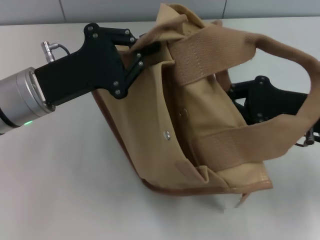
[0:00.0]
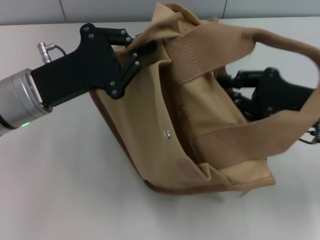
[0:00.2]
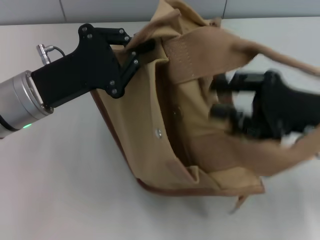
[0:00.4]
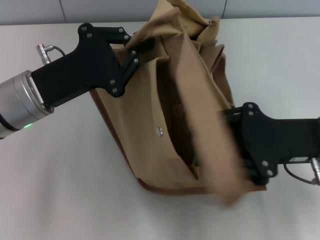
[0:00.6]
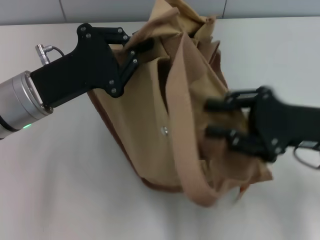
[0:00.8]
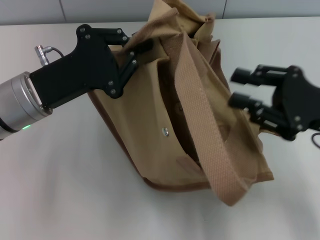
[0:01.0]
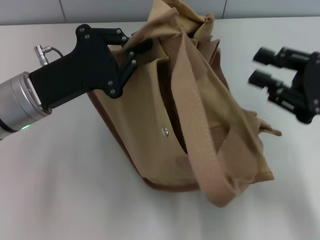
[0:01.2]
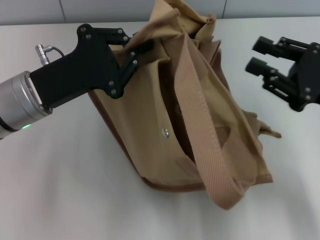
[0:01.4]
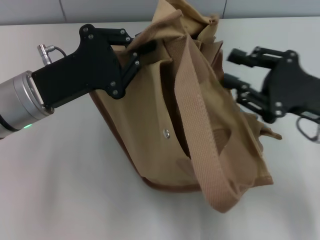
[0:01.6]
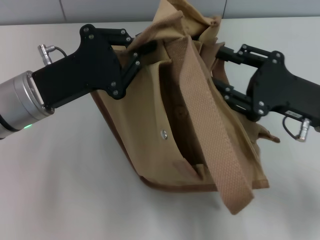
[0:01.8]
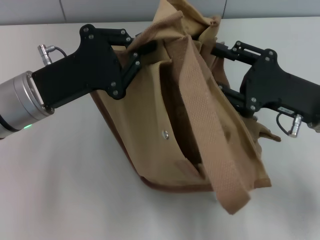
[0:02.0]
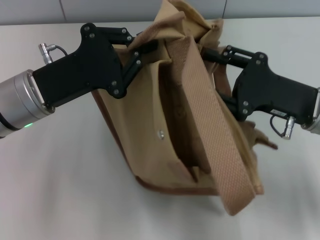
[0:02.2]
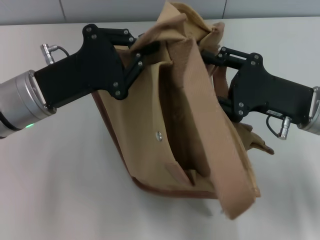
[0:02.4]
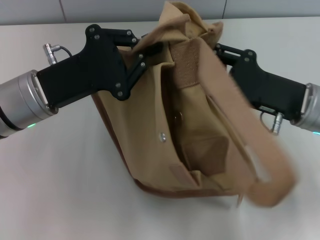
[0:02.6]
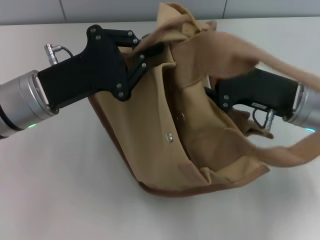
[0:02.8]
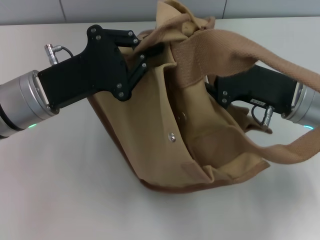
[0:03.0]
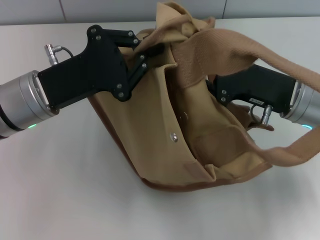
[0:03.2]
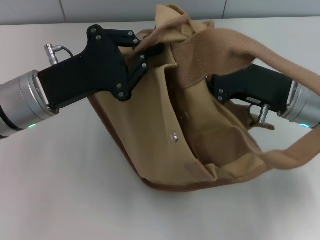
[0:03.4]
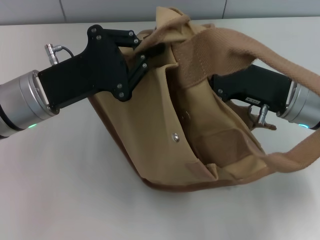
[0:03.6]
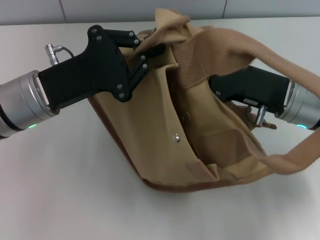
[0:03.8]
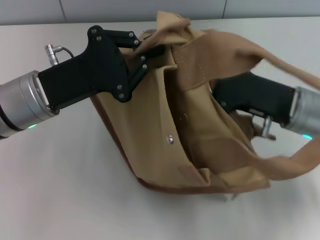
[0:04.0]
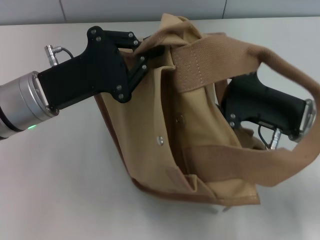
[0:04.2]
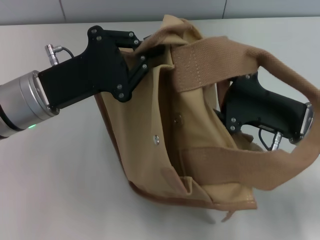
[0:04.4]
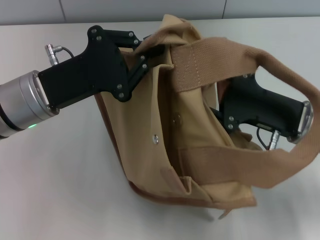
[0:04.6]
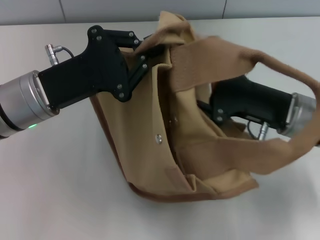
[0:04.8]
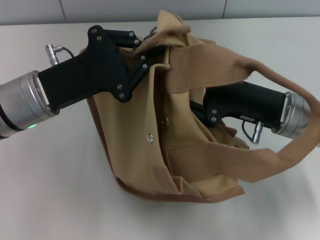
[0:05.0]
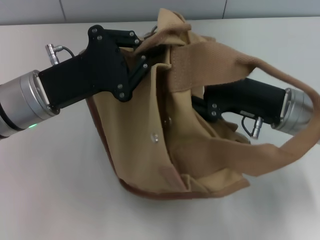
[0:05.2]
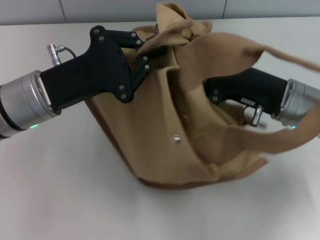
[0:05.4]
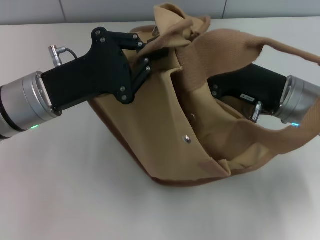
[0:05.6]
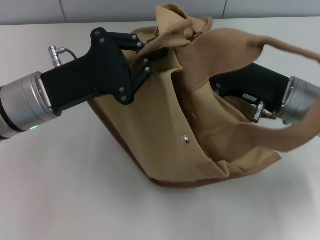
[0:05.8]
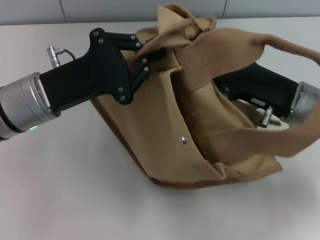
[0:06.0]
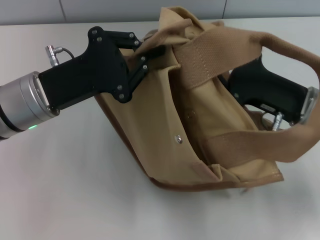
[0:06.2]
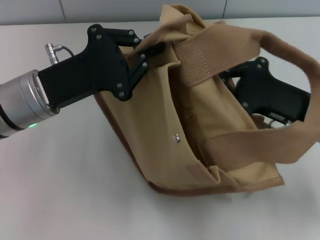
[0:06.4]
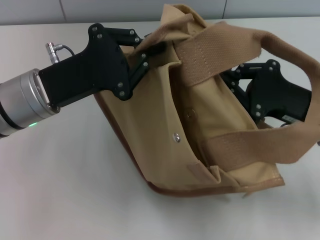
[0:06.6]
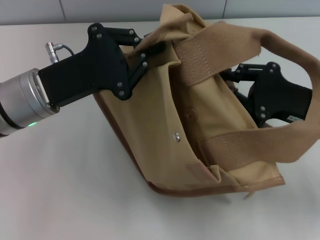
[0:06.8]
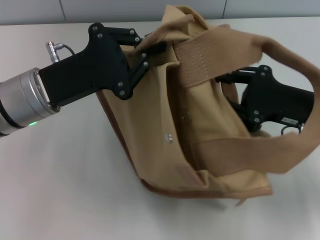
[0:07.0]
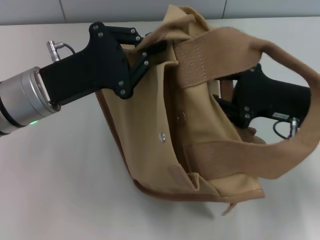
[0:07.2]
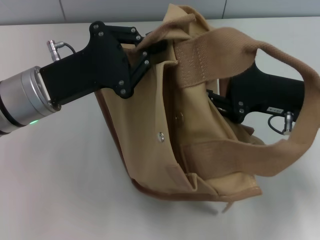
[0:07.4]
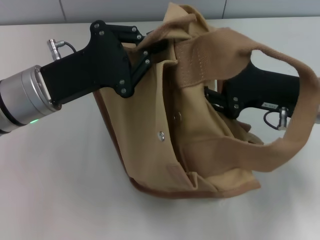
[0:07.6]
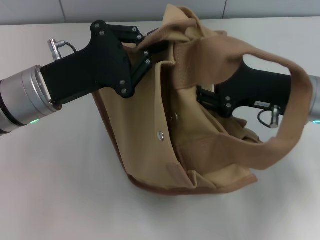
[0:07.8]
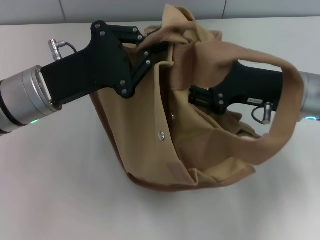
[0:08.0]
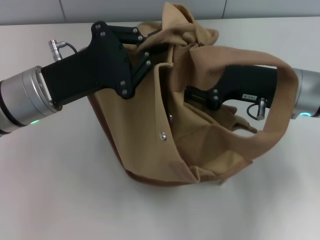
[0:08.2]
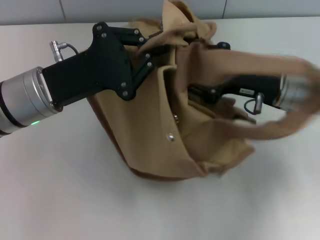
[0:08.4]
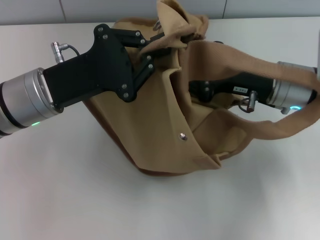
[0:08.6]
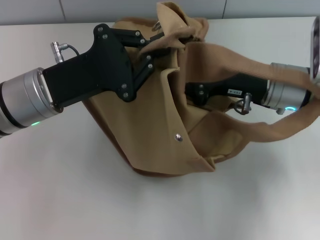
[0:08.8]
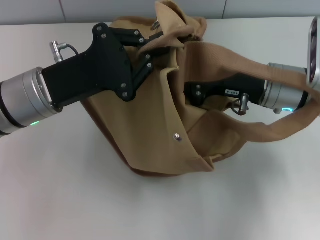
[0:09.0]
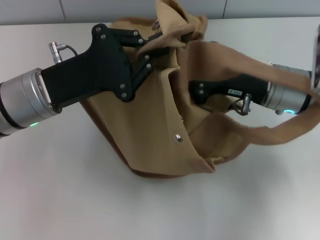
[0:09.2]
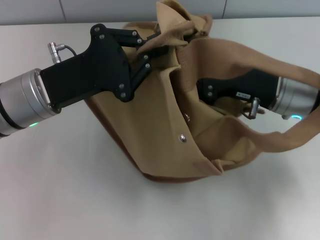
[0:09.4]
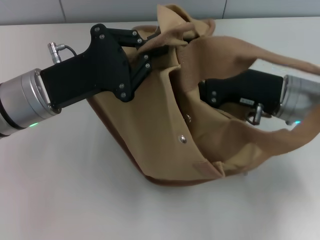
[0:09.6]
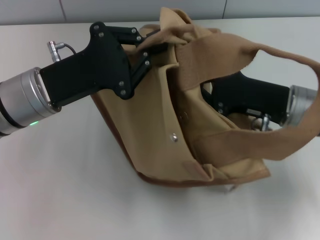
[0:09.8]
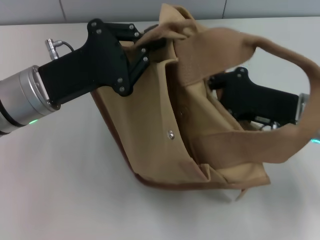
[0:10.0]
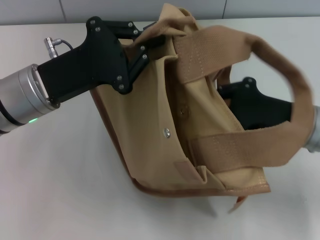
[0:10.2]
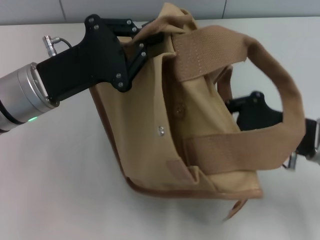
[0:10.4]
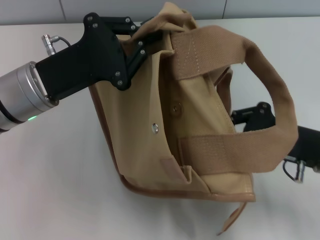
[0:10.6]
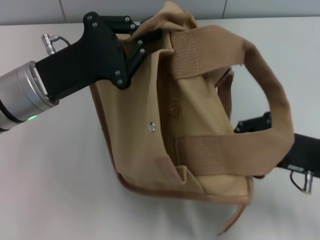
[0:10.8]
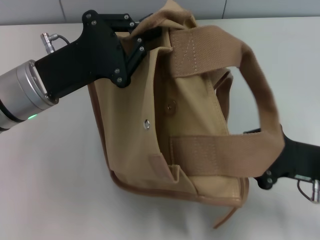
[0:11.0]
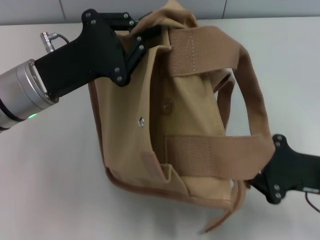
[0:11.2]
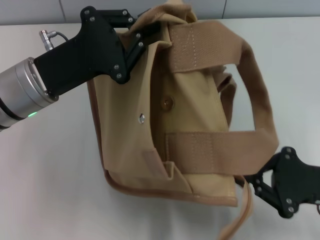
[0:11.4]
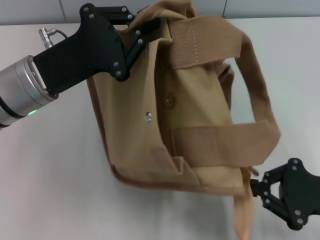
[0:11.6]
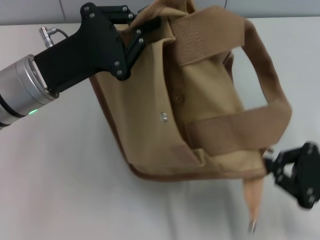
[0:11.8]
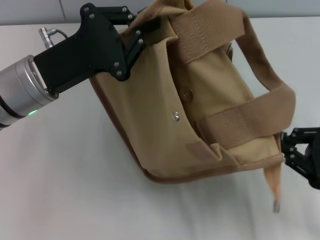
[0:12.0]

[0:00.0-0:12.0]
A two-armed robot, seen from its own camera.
0:00.0 to 0:01.6: The right gripper opens its fingers.
0:01.6 to 0:03.0: The right gripper changes place by some 5 cm.
0:03.0 to 0:04.4: The right gripper closes, then reopens.
0:04.4 to 0:06.0: The right gripper closes.
0:06.0 to 0:07.6: The right gripper opens its fingers.
0:07.6 to 0:09.0: The right gripper closes.
0:09.0 to 0:10.4: The right gripper shifts some 10 cm backward and to the right.
0:10.4 to 0:12.0: The right gripper shifts some 10 cm to the right and backward.

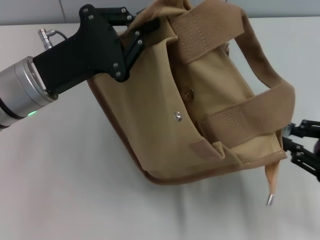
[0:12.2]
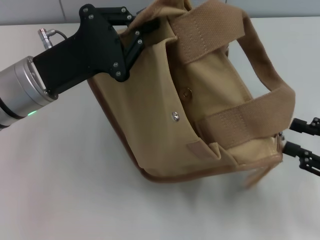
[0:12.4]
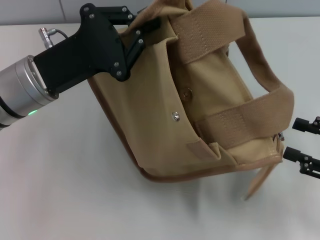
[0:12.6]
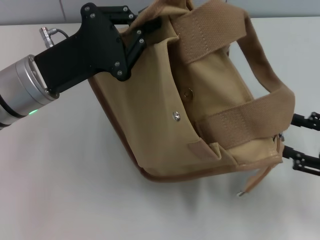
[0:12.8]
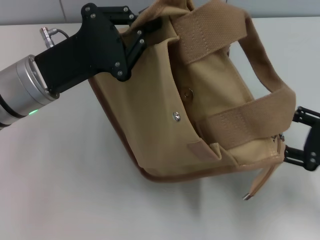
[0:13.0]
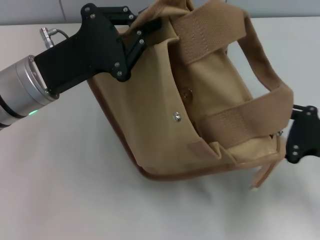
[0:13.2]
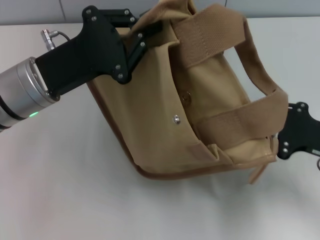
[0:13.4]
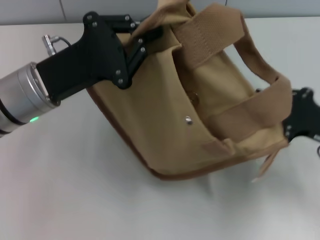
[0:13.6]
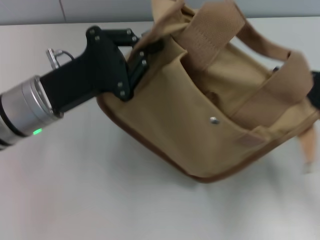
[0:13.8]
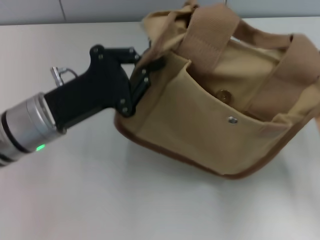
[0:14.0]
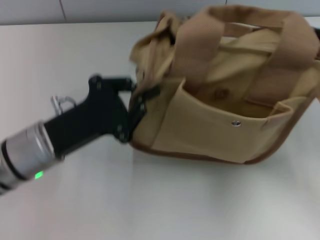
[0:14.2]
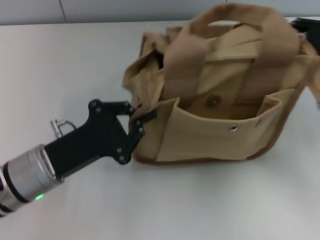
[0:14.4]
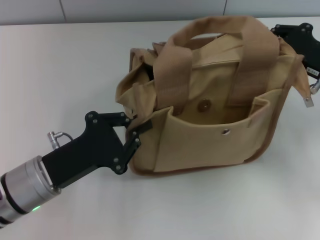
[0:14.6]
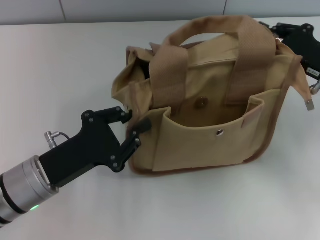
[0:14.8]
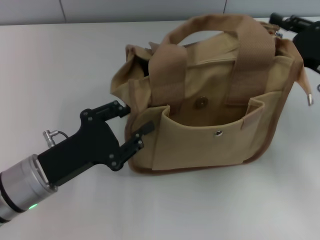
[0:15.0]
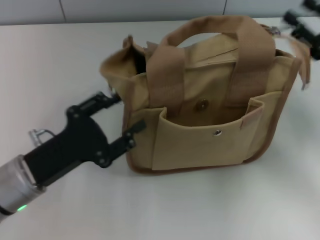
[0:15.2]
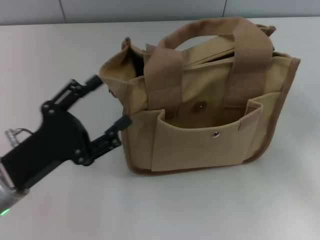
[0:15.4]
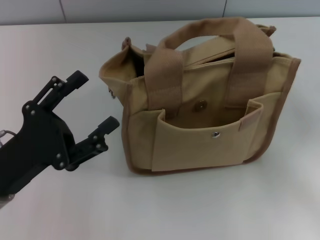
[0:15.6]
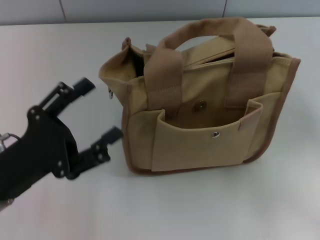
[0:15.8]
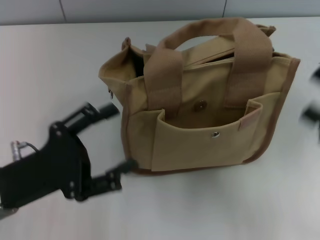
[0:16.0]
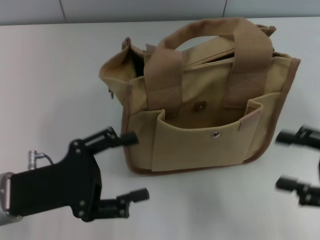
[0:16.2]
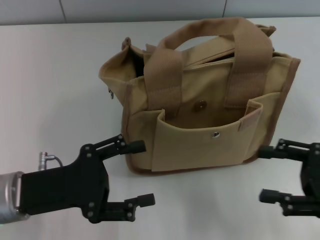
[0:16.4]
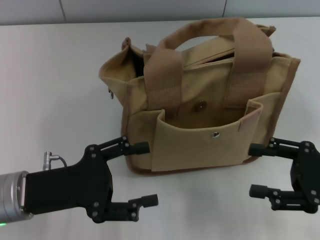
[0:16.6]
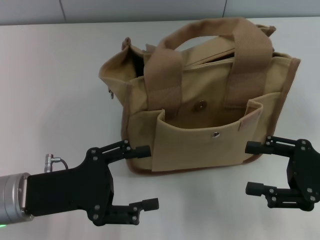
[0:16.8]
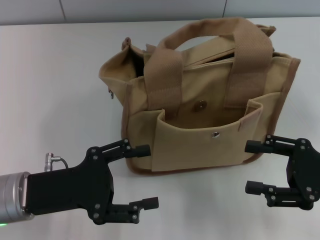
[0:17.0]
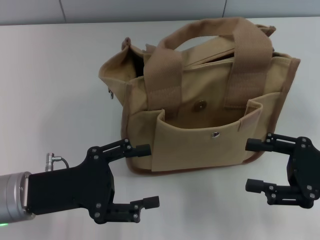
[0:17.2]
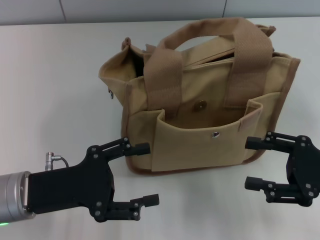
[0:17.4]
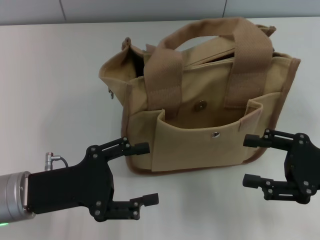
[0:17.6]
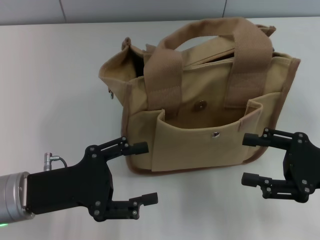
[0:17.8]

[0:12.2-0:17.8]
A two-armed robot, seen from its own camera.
Step, 0:12.6 to 0:15.2: Grab the bag with your left hand.
0:12.2 to 0:13.6: The right gripper heads forward, covering roughly 5 cm, and opens, then closes once more.
0:13.6 to 0:15.0: The left gripper heads backward and downward, covering approximately 10 cm. The right gripper moves forward, some 5 cm.
0:15.0 to 0:16.4: The left gripper opens its fingers. Meanwhile the right gripper travels backward by some 10 cm, and opens up.
0:16.4 to 0:17.8: The grippers make only small movements.

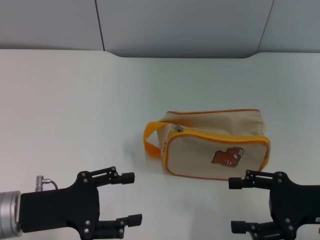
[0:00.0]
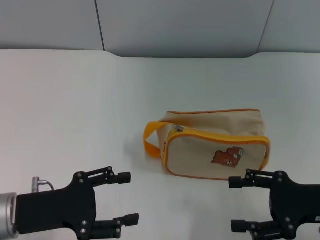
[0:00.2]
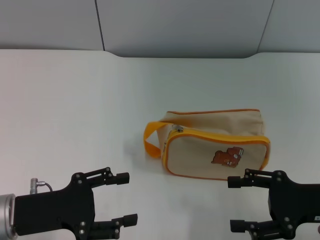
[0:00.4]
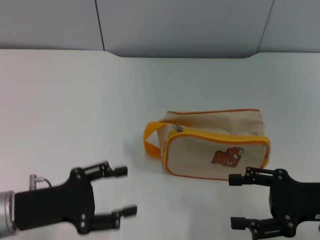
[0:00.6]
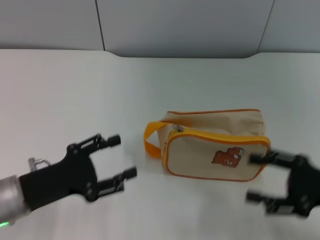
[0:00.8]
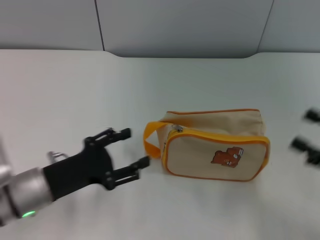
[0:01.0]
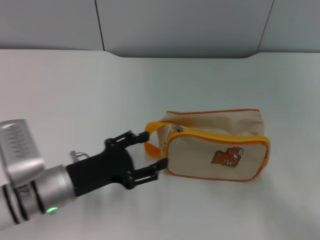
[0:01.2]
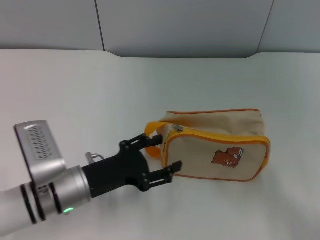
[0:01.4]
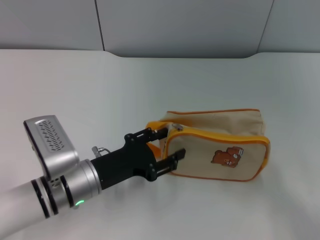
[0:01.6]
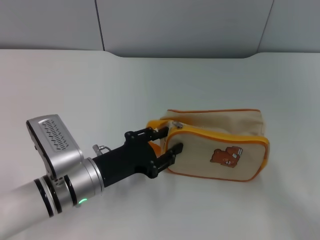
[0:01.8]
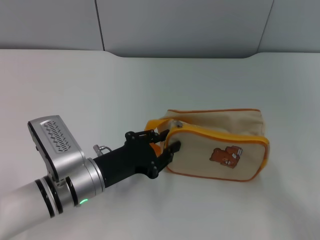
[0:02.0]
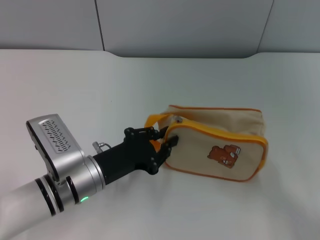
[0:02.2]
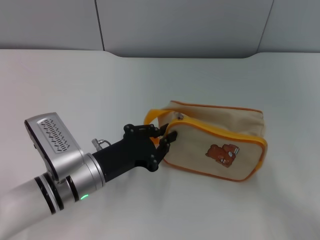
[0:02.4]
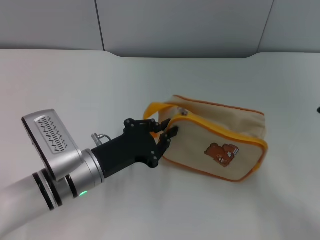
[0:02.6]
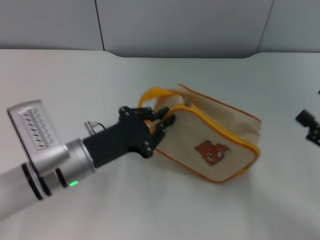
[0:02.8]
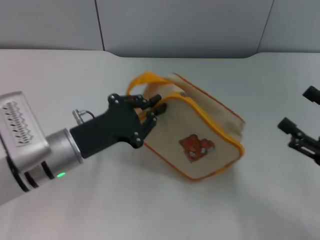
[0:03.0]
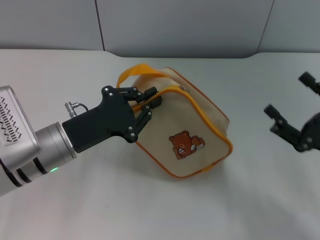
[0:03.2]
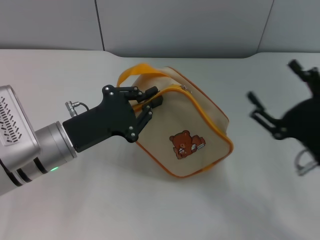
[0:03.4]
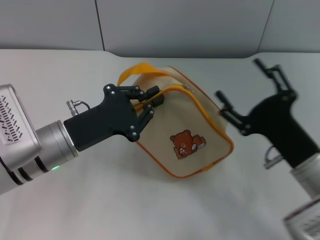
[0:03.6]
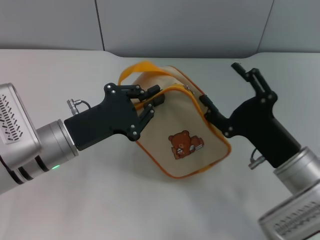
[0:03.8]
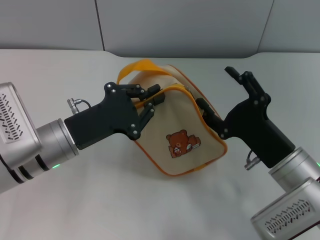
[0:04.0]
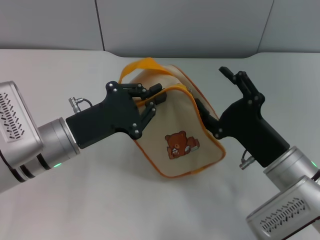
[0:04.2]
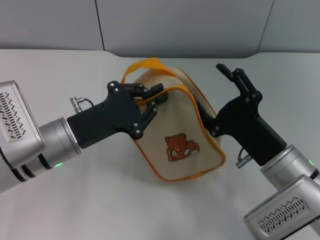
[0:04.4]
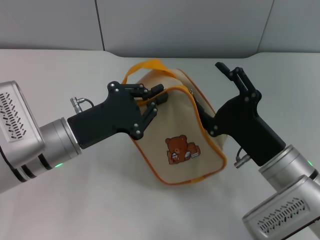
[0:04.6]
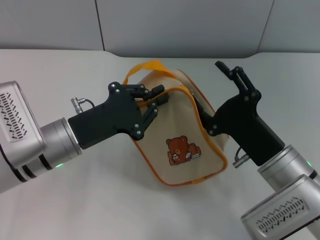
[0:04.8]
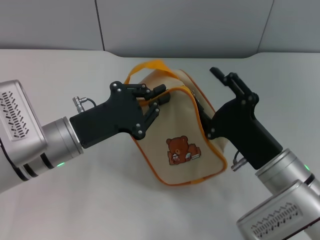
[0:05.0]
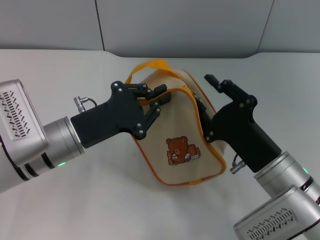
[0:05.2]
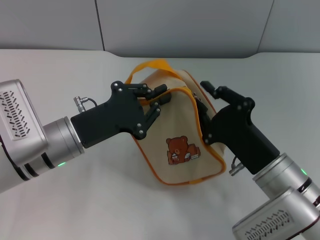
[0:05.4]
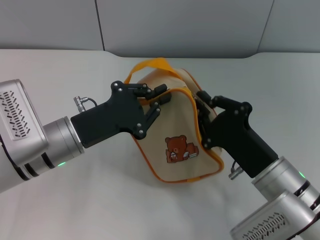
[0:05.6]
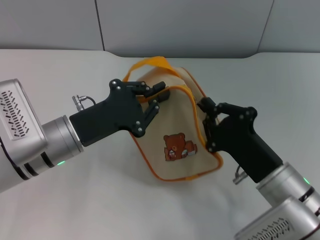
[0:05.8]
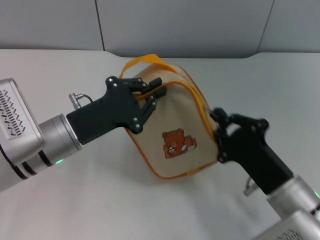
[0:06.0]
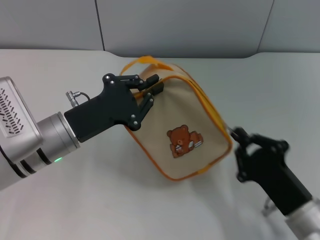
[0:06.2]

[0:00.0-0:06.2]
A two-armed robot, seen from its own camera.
Step, 0:00.0 to 0:03.2: Pick up the bag with left gripper.
0:00.0 to 0:01.6: The grippers both shift to the right by about 10 cm.
0:01.6 to 0:03.2: The left gripper ends up roughly 5 cm from where it was, and closes up. Meanwhile the right gripper heads to the left, covering some 10 cm.
0:03.2 to 0:04.6: The right gripper heads to the left, covering about 10 cm.
0:04.6 to 0:06.2: The right gripper is displaced backward by some 5 cm, and closes.
